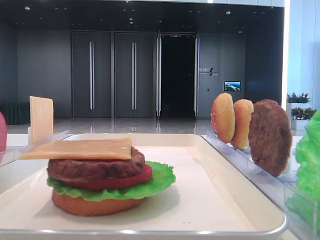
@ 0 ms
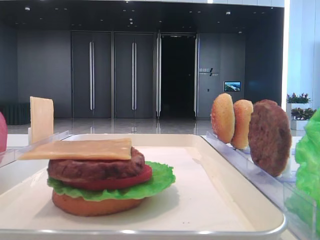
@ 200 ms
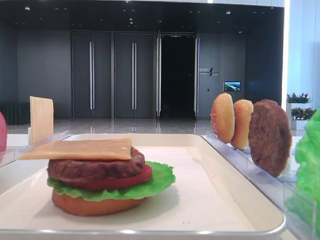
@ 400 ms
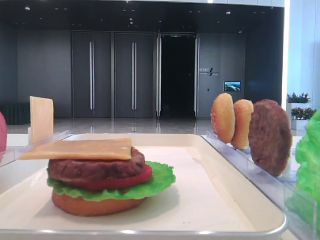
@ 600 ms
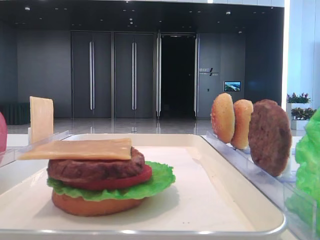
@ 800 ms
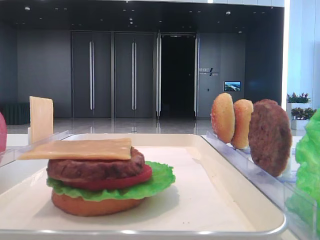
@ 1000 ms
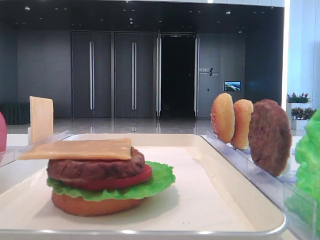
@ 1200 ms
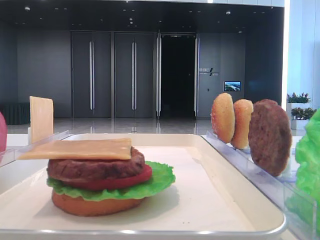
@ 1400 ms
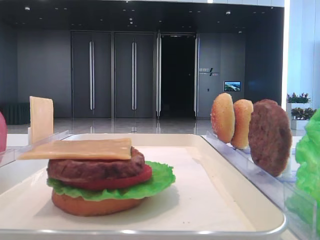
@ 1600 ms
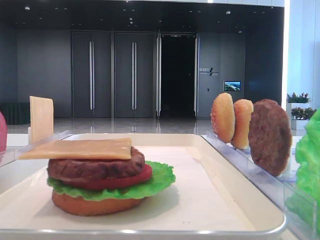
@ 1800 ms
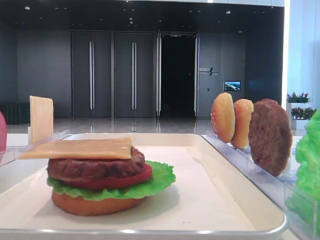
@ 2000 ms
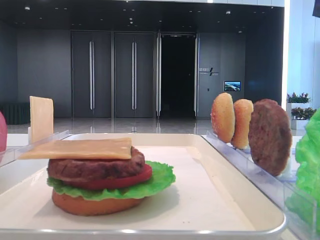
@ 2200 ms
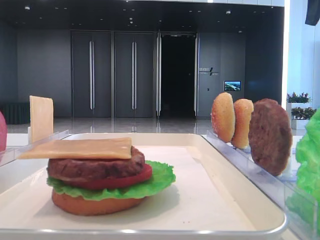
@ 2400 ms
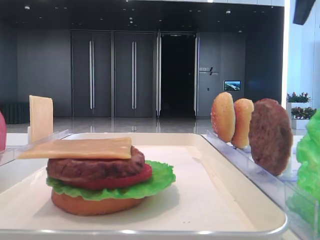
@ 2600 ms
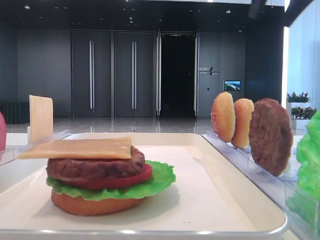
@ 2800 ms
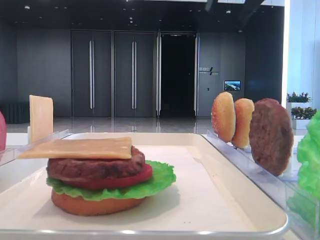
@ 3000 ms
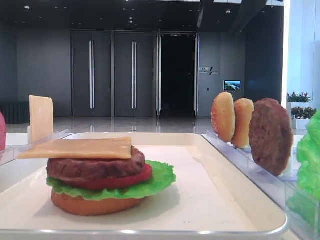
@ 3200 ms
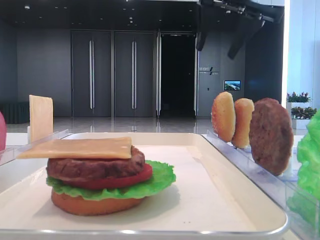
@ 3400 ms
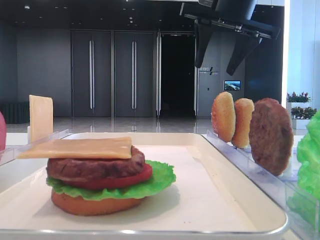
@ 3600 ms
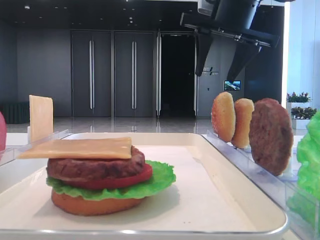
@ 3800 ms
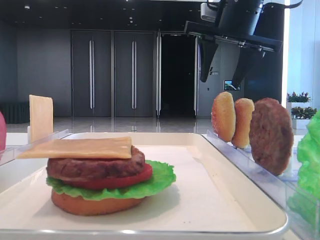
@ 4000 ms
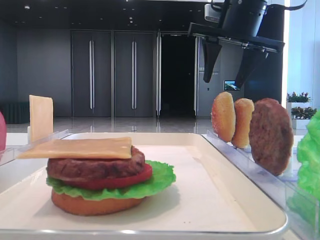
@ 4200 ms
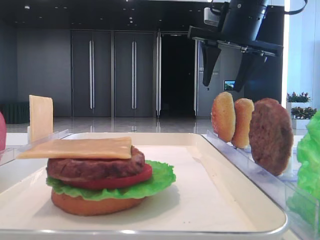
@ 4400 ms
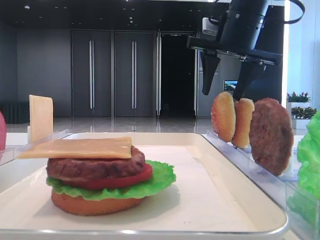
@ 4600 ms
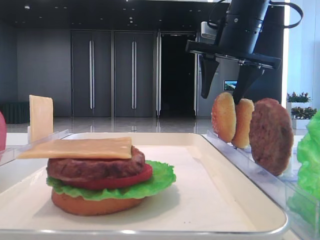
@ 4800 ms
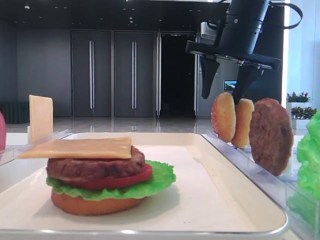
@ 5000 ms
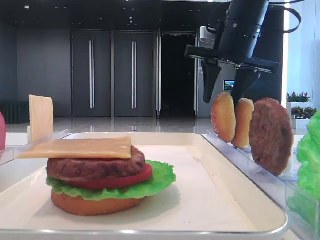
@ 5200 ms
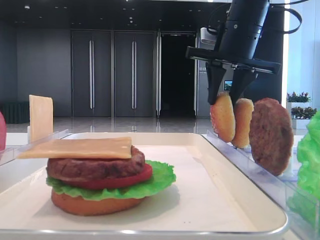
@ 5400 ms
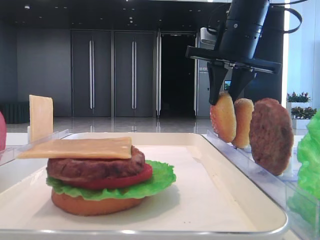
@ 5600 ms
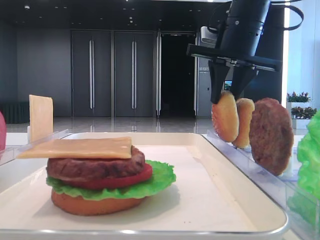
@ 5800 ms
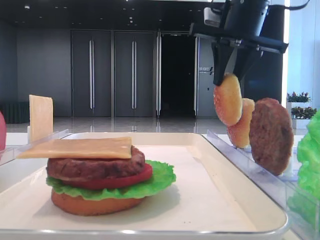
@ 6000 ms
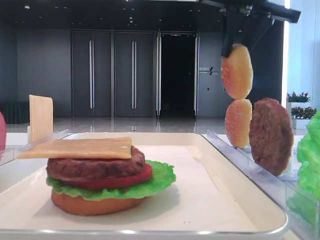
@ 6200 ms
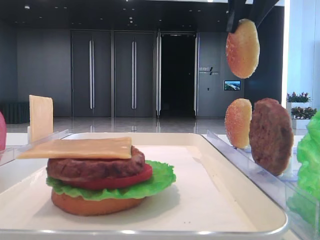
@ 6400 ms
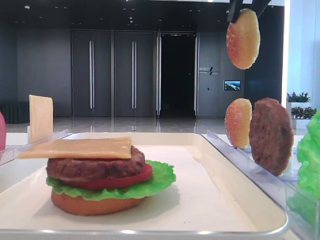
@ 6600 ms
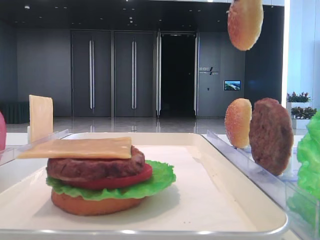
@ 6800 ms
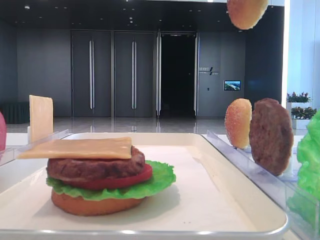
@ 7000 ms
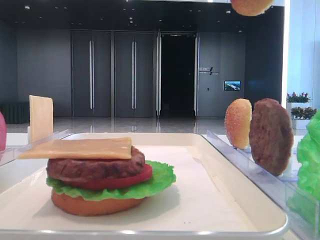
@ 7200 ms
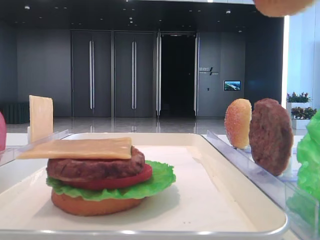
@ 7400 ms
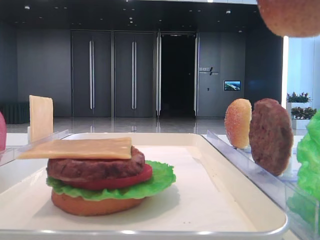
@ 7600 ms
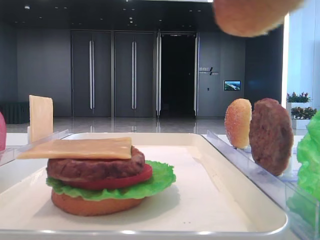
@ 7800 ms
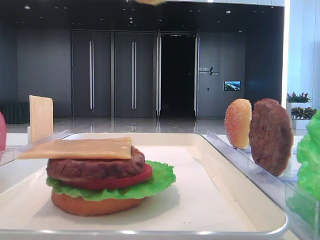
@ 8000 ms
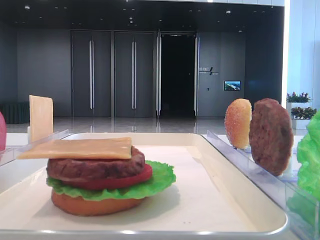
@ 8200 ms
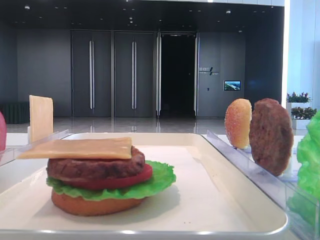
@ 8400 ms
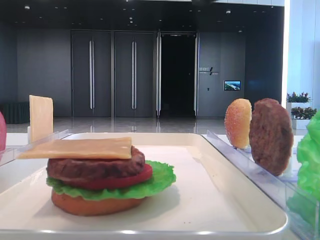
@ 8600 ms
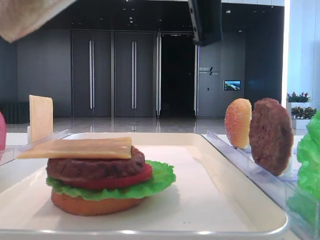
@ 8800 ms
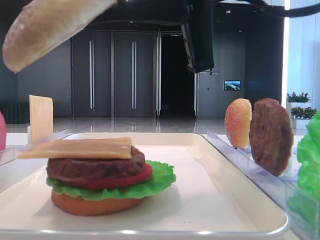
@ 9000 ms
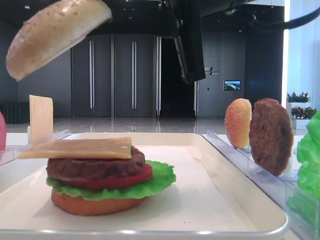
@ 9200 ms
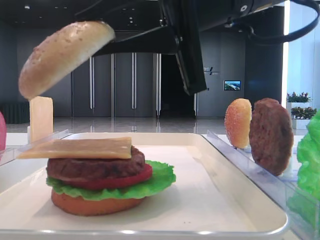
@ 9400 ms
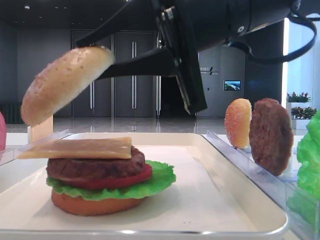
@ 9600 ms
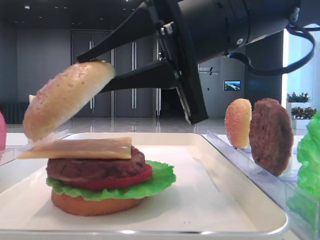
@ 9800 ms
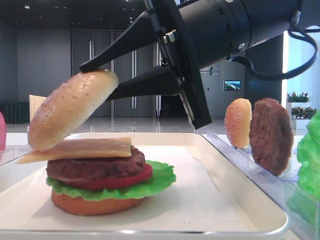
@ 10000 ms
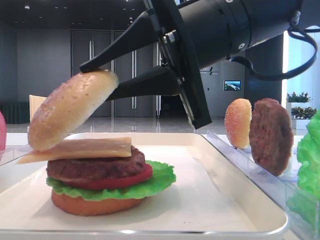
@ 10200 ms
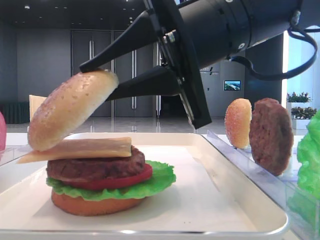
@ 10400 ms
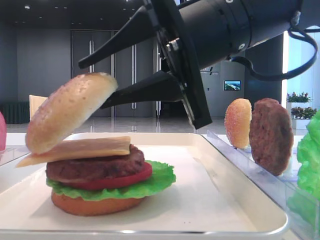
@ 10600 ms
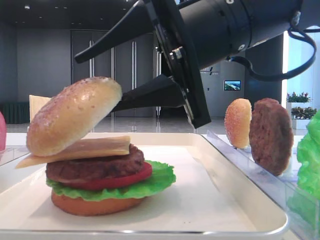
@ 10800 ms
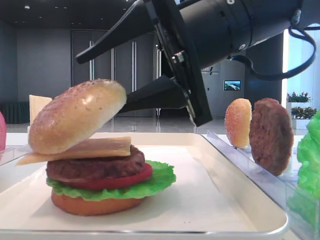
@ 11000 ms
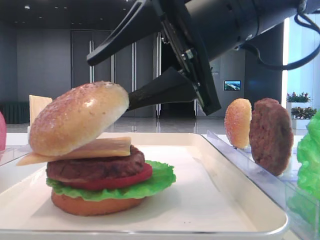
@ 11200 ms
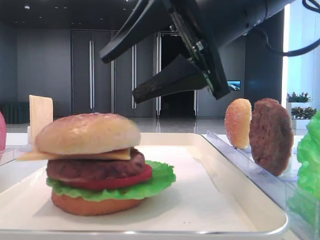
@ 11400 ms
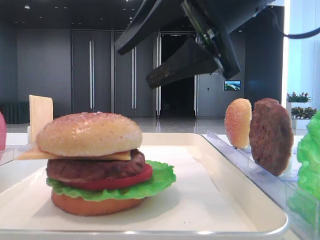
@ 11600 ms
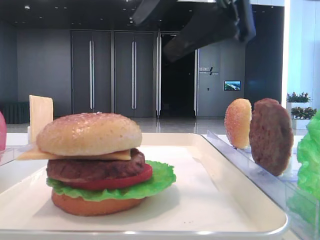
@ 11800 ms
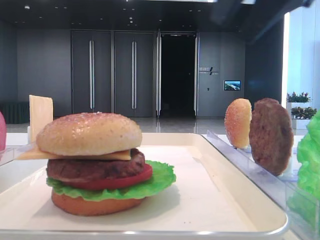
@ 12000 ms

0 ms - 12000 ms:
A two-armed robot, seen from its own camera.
Step, 0 ms - 5600 ms: Pick up the top bread slice with the right hand.
Step, 5800 ms - 11200 ms: Place the top bread slice on the cheese with the right hand.
1600 ms - 3000 ms: The right gripper shifts approximately 25 cm forward and to the left, and opens its fingers.
3000 ms - 4400 ms: The right gripper heads downward and forward, covering about 10 cm.
4400 ms - 6000 ms: The right gripper closes its fingers.
6000 ms - 7600 ms: The right gripper travels backward by some 30 cm.
7600 ms - 9000 ms: The right gripper travels downward, forward and to the left by some 15 cm.
9000 ms - 10400 ms: The right gripper goes about 5 cm downward.
10400 ms - 12000 ms: The right gripper travels upward and to the right by approximately 15 cm, and opens its fingers. The left gripper closes its fingers.

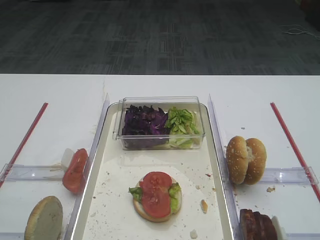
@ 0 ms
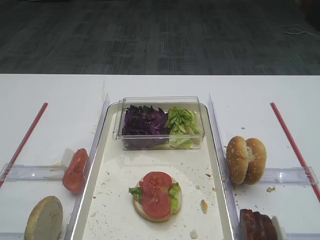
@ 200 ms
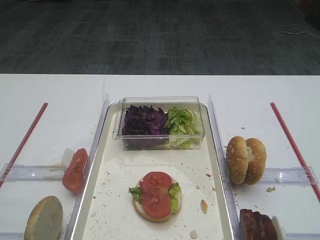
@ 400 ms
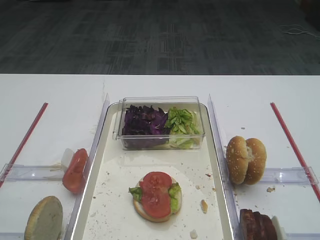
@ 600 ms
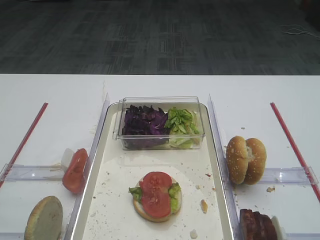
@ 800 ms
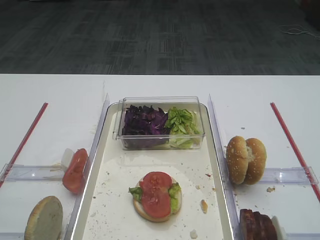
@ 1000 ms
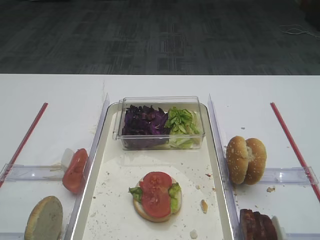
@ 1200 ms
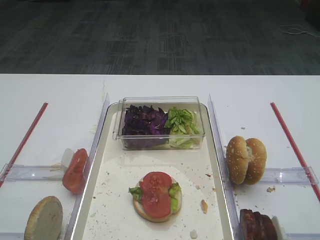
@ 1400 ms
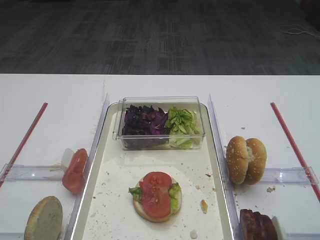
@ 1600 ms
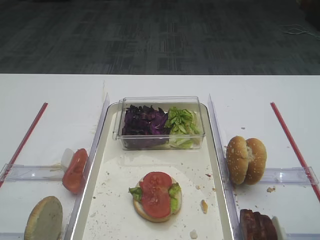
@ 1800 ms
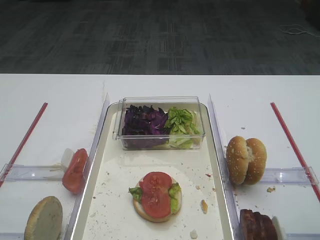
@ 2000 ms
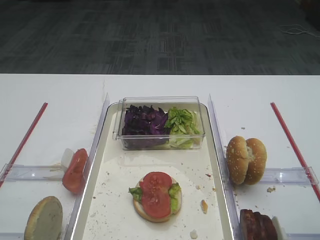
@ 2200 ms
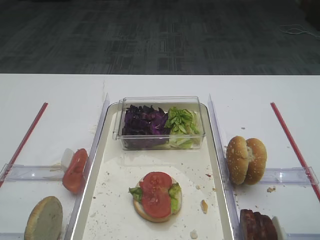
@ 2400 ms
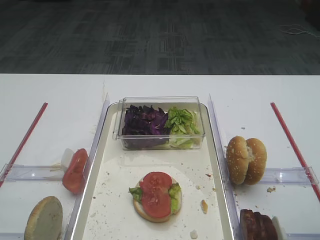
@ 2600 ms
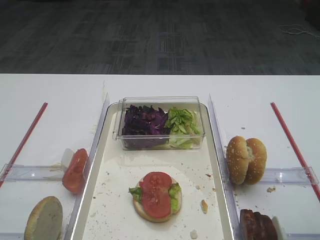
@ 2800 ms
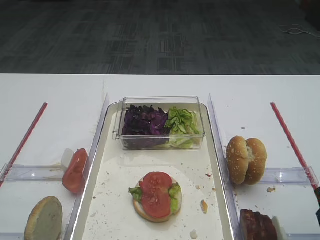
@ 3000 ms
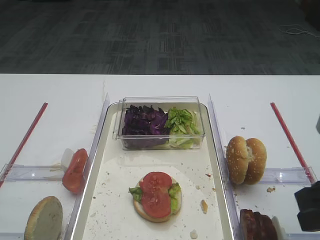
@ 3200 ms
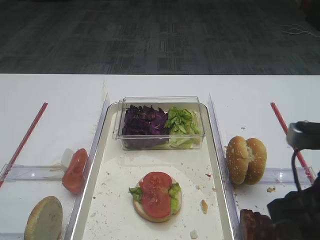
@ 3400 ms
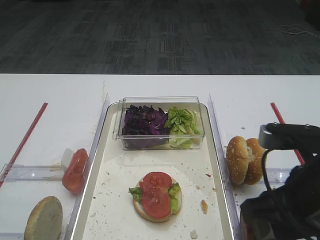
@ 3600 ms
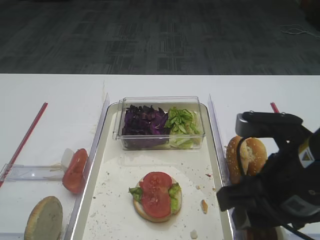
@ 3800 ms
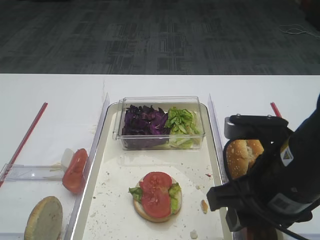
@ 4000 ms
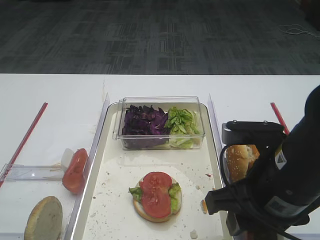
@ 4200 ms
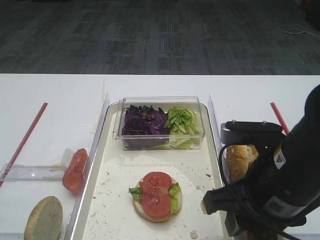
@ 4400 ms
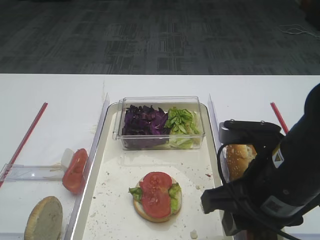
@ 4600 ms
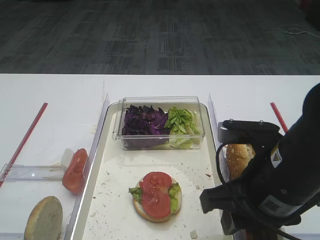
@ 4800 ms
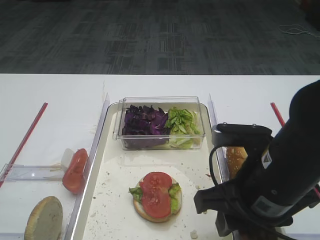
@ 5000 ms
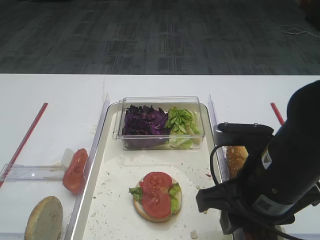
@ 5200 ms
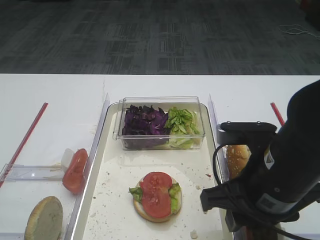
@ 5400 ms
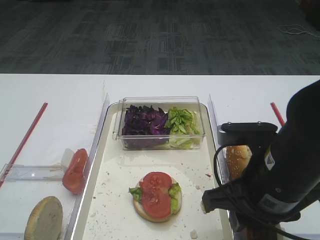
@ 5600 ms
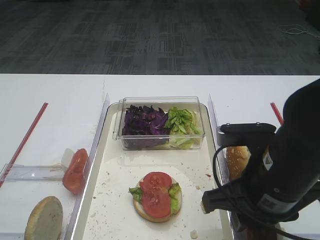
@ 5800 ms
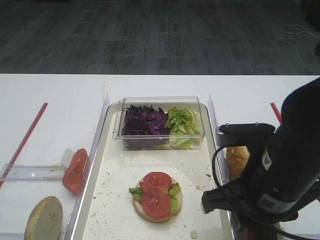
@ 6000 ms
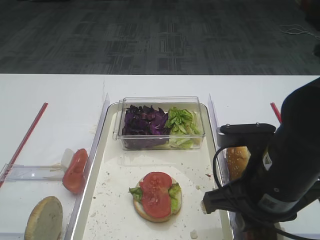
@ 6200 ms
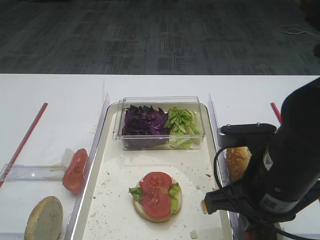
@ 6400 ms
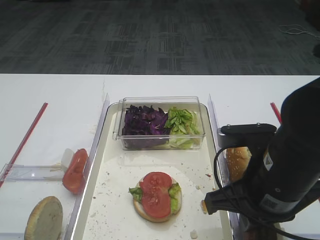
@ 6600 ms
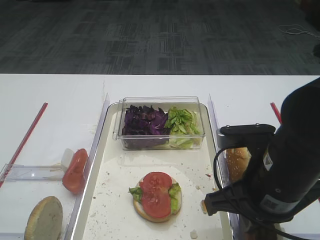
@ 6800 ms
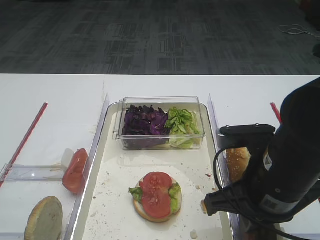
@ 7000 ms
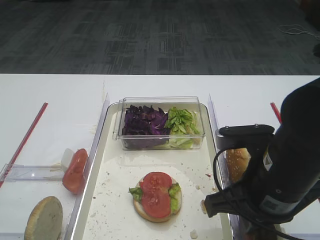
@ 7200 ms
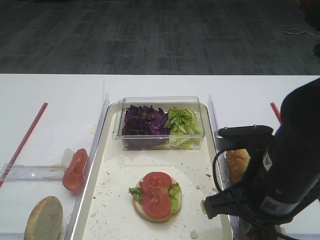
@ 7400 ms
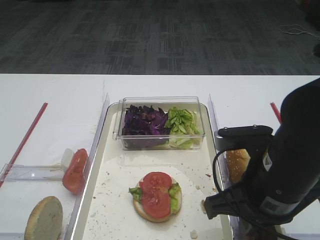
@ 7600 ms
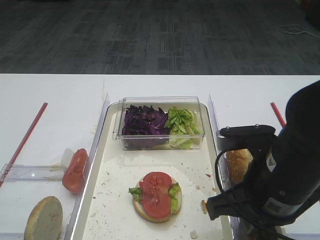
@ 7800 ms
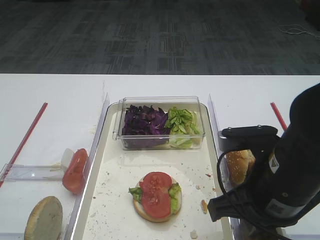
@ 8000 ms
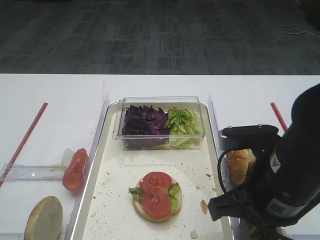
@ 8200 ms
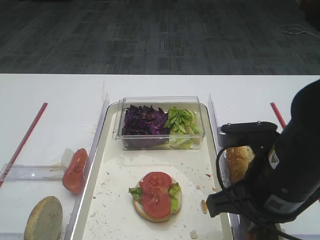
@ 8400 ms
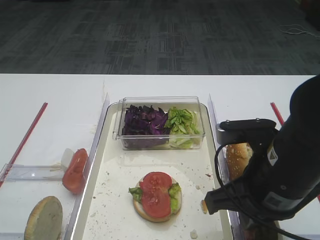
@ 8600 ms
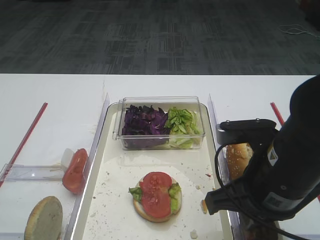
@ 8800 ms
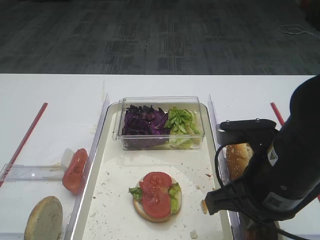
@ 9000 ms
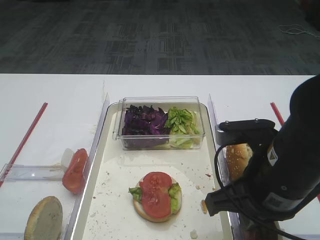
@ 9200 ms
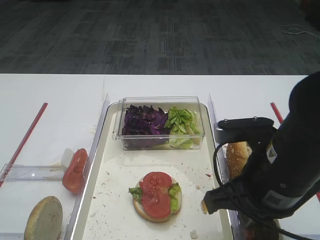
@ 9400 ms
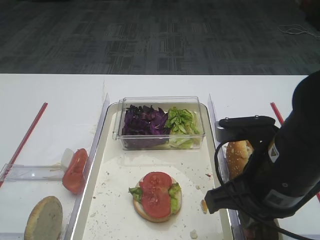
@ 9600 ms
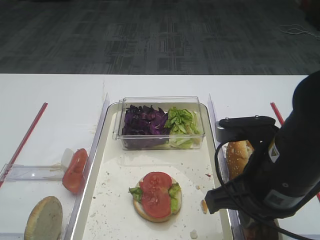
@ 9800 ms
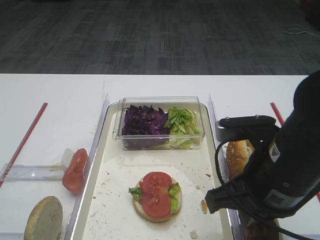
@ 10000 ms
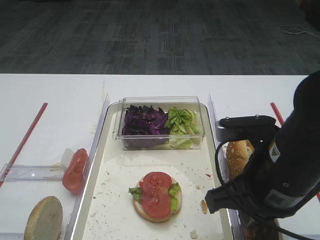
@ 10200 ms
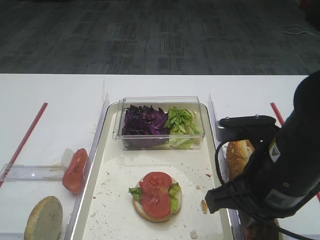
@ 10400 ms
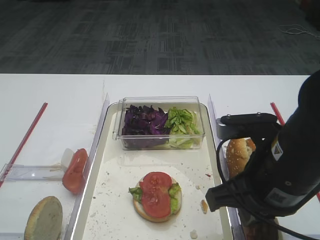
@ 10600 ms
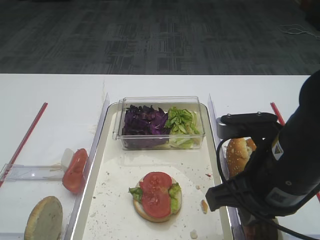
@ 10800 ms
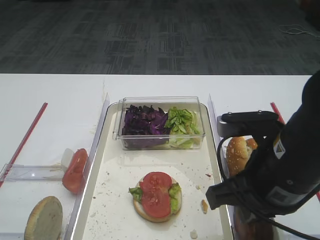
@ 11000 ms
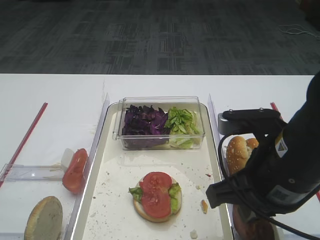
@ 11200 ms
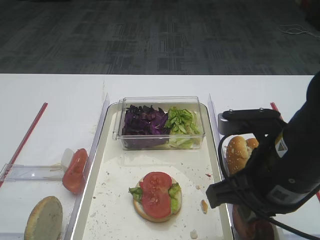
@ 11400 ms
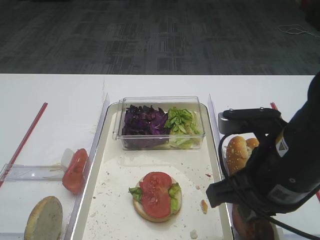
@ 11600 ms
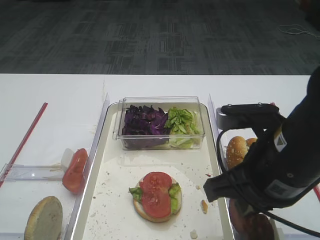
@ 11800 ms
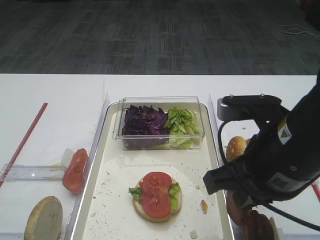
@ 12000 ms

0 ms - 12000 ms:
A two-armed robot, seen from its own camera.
Step, 0 ms - 11800 ms: Pick up the cutlet with the right gripper.
3000 ms - 4400 ms: The right gripper heads to the left, covering some 10 cm.
4400 ms - 6000 ms: The grippers move only a little.
6000 ms - 7600 ms: The right gripper closes its fingers.
7600 ms - 9000 ms: The two grippers keep their place.
9000 ms - 10400 ms: Neither gripper changes place.
10400 ms - 12000 ms: There are only small adjustments of the grippers.
